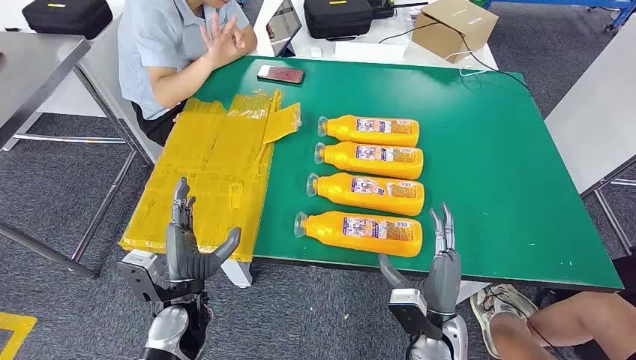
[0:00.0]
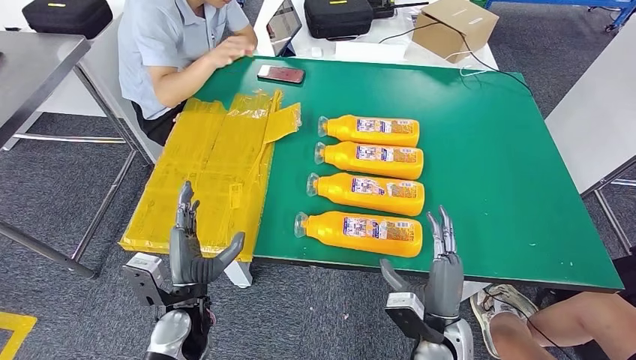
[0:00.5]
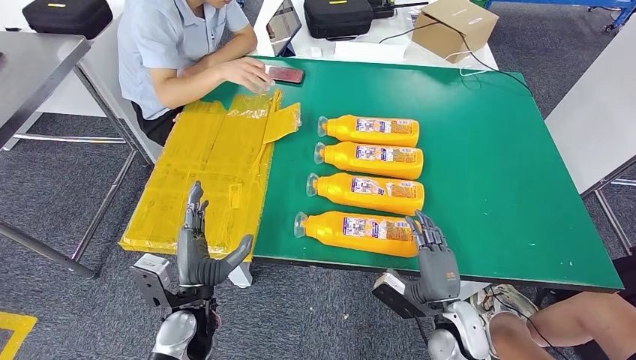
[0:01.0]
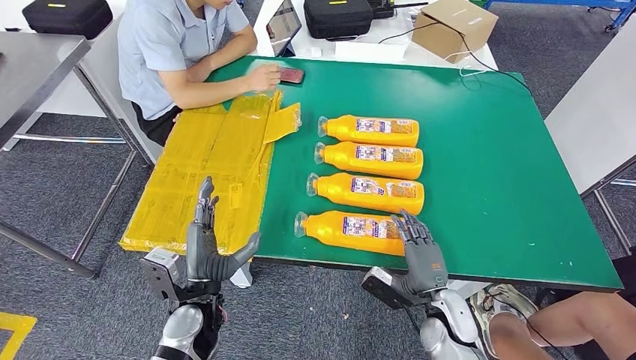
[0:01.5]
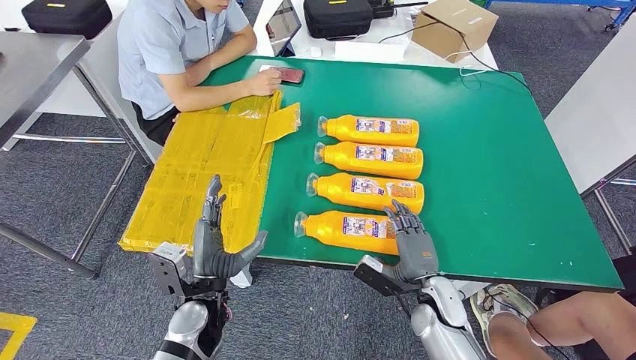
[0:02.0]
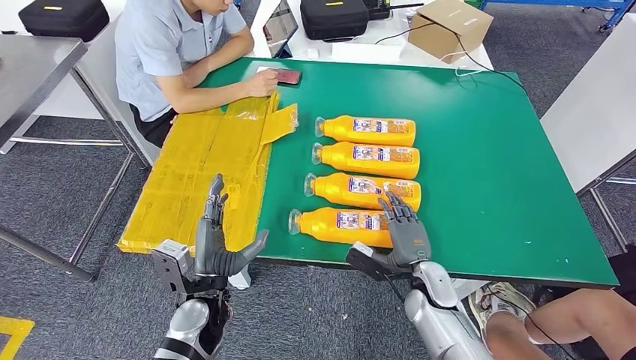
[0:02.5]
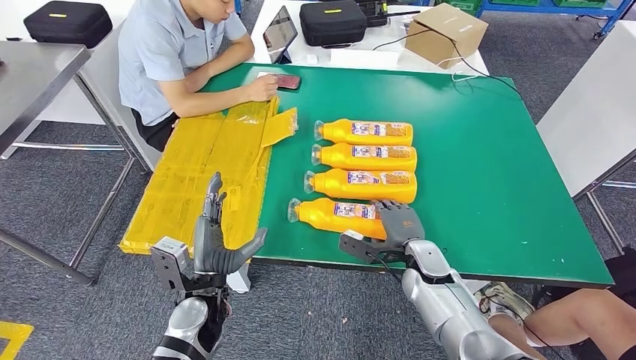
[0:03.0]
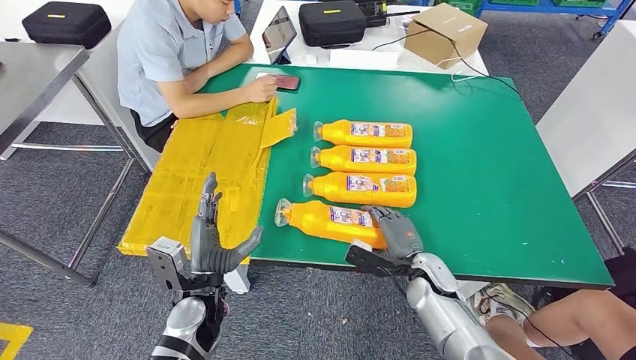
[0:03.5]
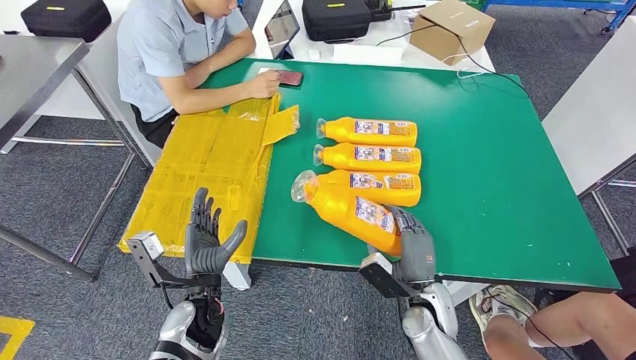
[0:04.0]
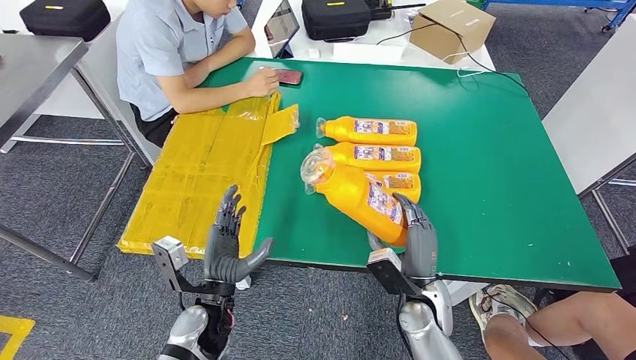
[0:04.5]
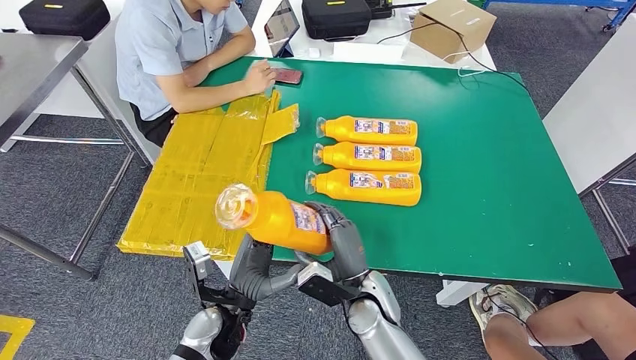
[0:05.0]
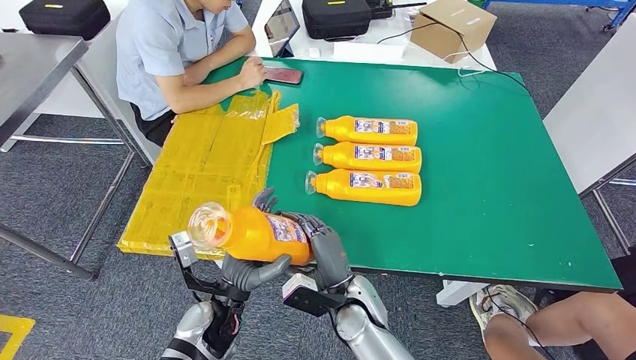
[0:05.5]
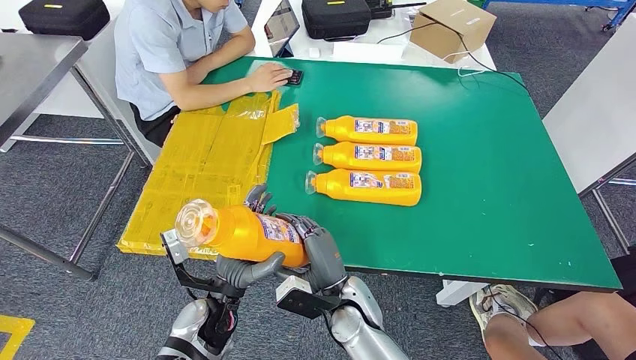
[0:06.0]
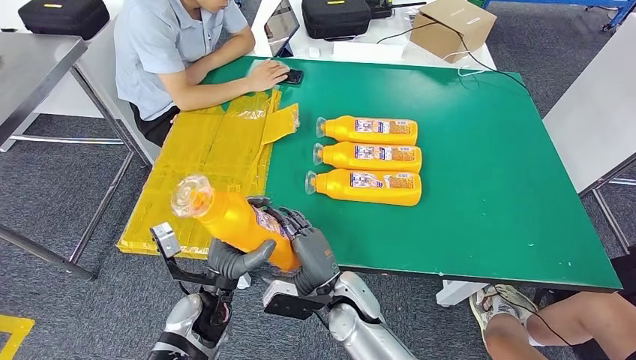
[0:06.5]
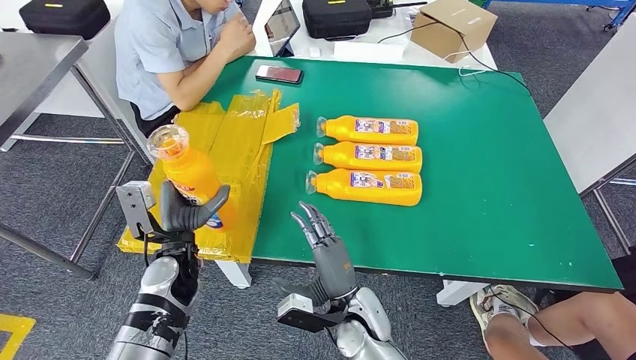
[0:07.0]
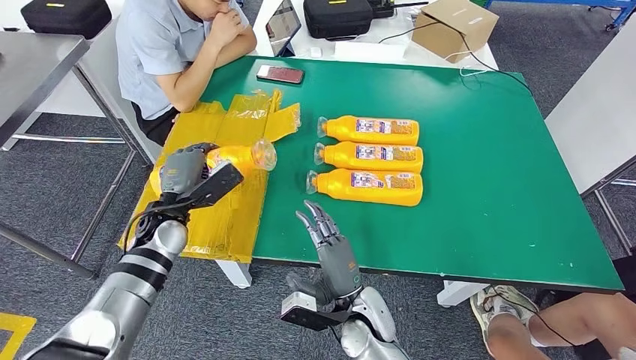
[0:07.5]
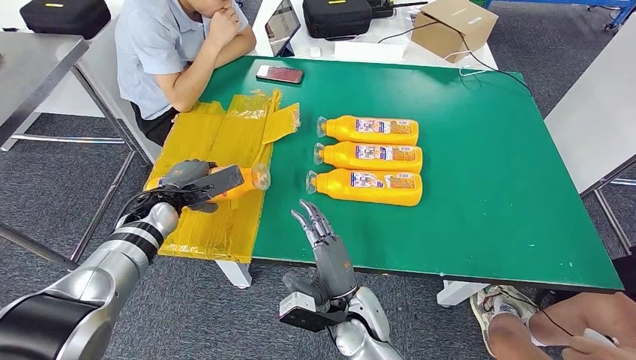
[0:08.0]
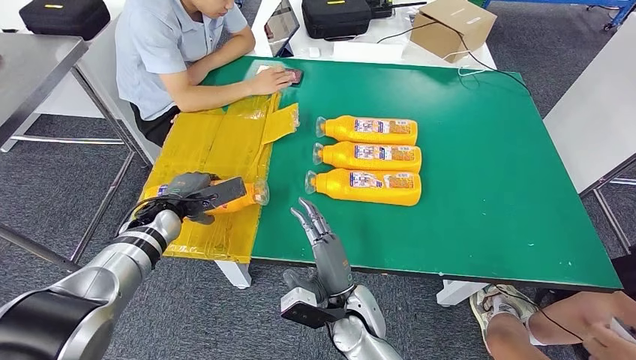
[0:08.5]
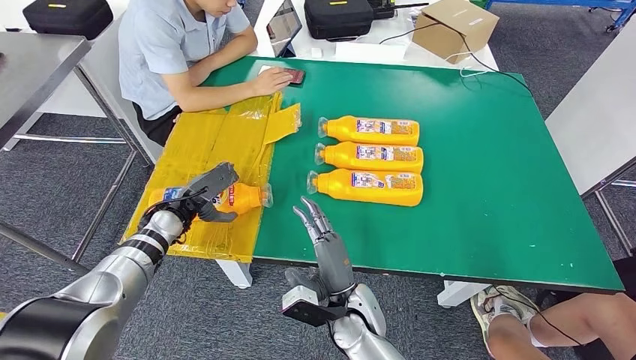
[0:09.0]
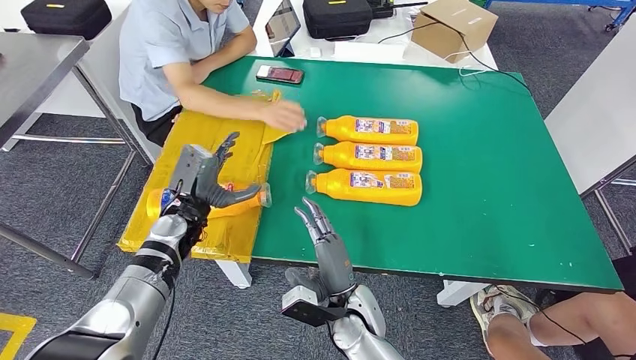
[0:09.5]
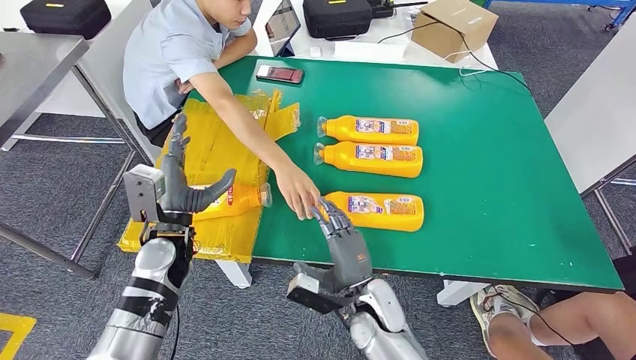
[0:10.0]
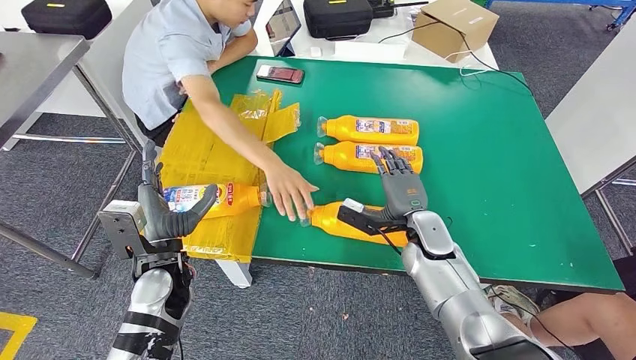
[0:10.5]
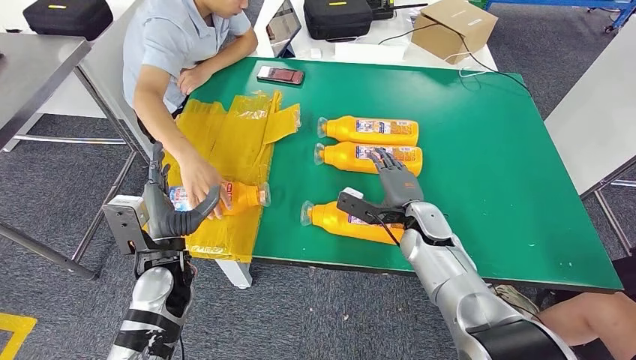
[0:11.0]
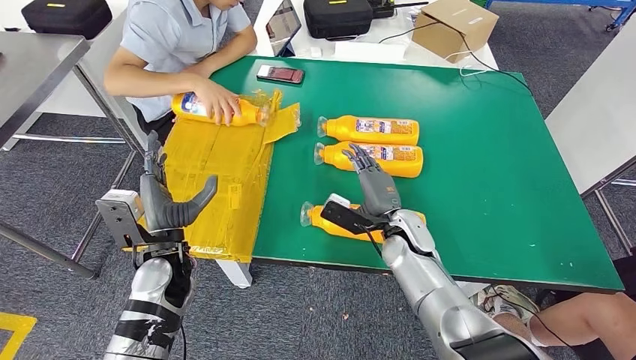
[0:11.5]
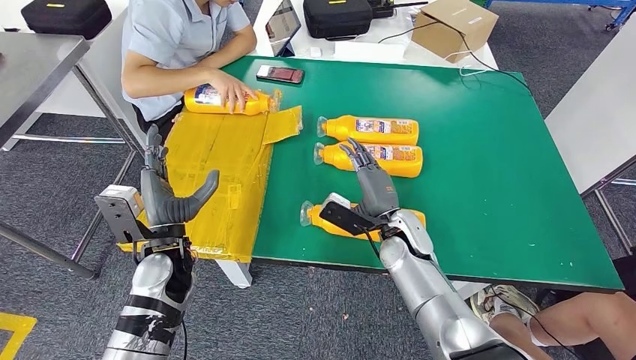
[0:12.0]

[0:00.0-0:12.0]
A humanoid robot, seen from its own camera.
Step, 0:00.0 to 0:04.5: Take the fast-moving consumer goods bottle from the table.
Step, 0:05.0 to 0:09.0: Flip the fast-moving consumer goods bottle to the front side.
0:04.0 to 0:06.0: The right hand is displaced to the left by some 15 cm.

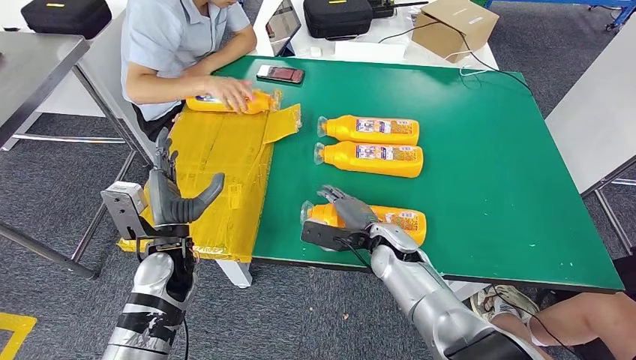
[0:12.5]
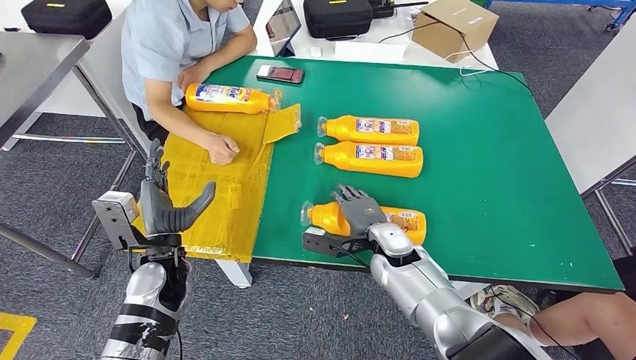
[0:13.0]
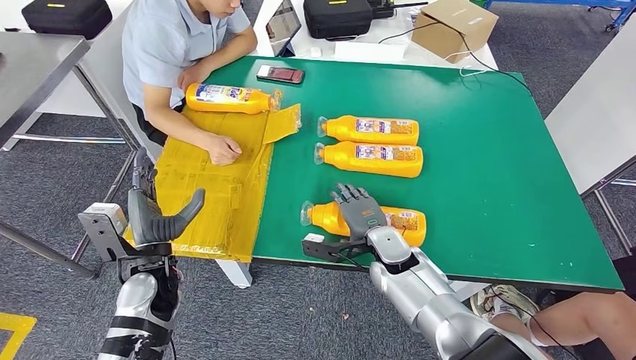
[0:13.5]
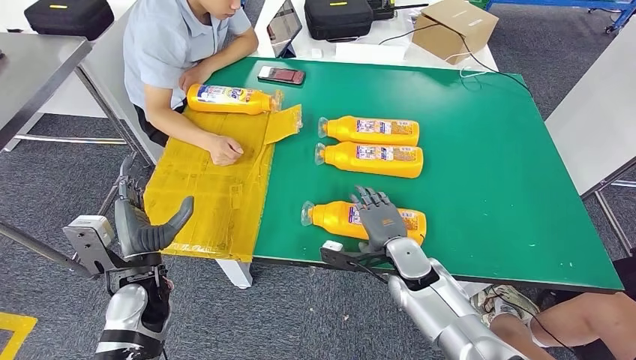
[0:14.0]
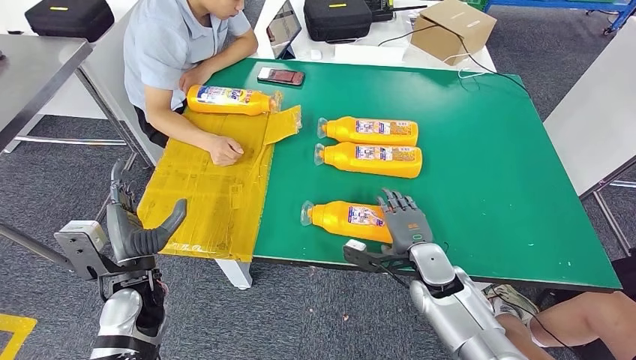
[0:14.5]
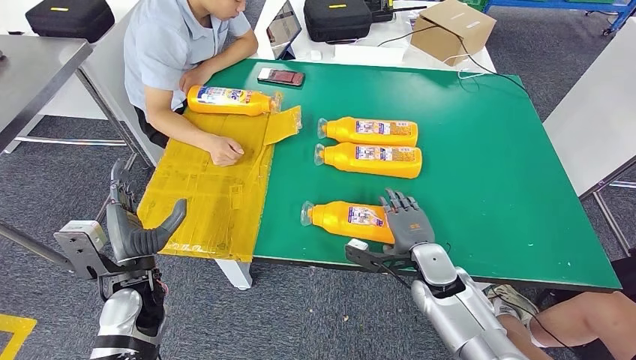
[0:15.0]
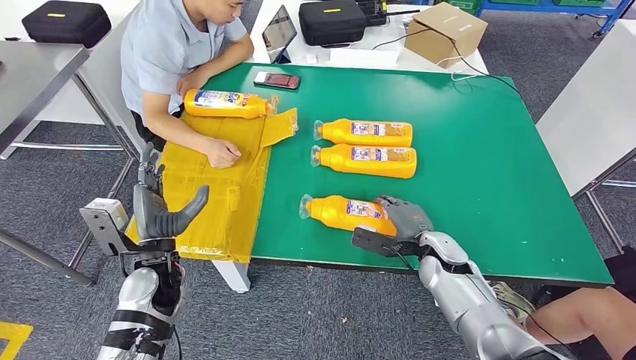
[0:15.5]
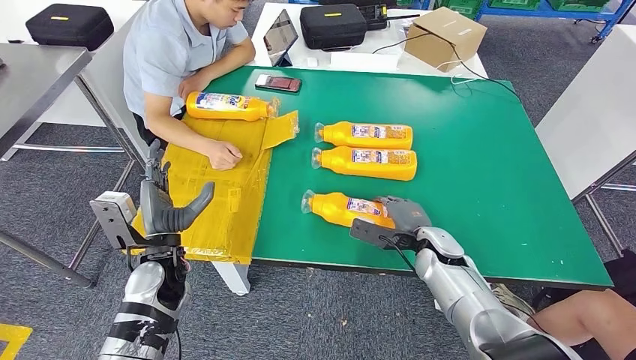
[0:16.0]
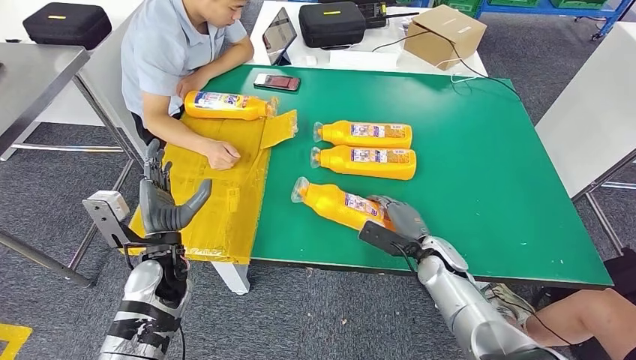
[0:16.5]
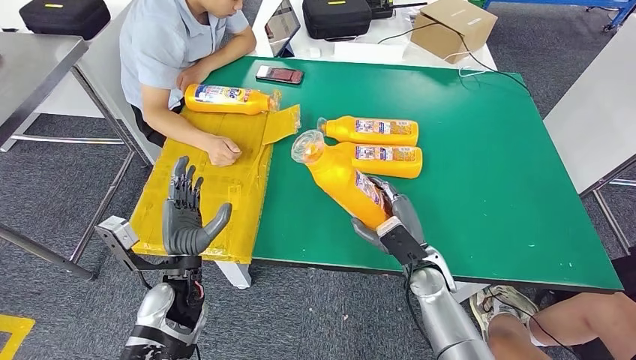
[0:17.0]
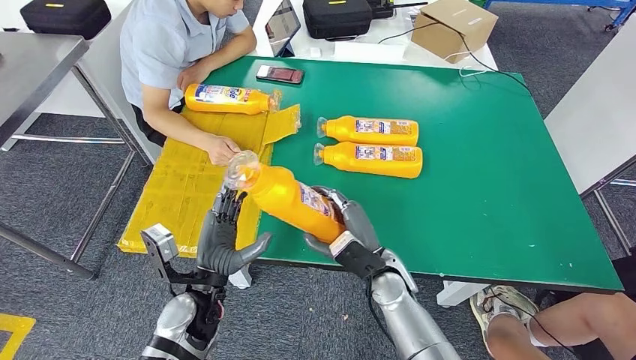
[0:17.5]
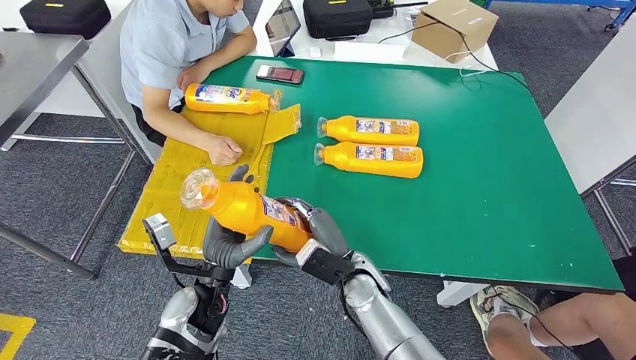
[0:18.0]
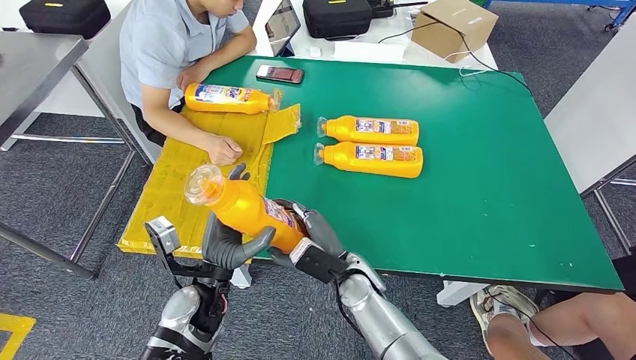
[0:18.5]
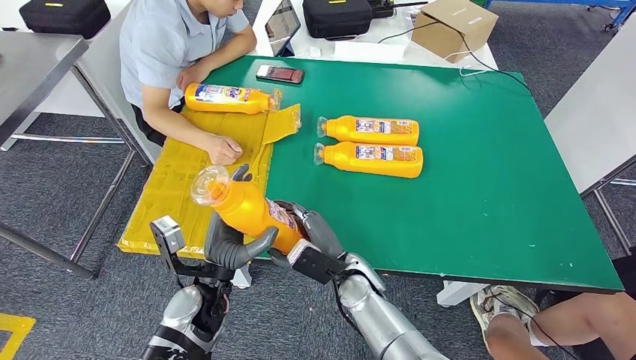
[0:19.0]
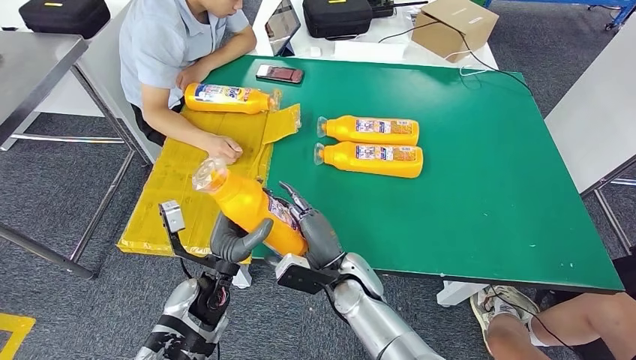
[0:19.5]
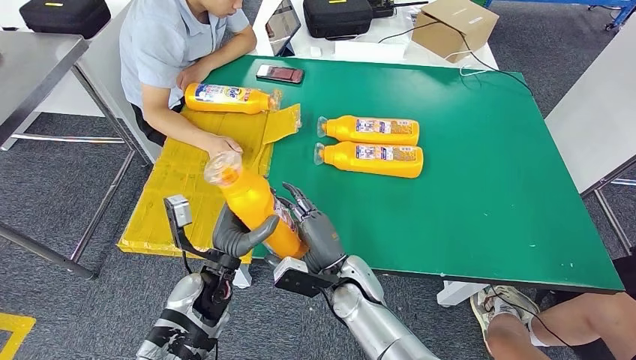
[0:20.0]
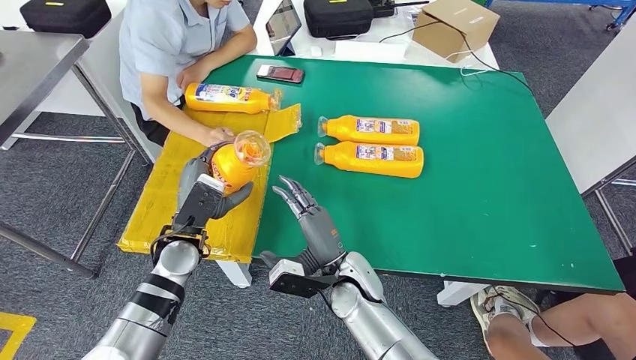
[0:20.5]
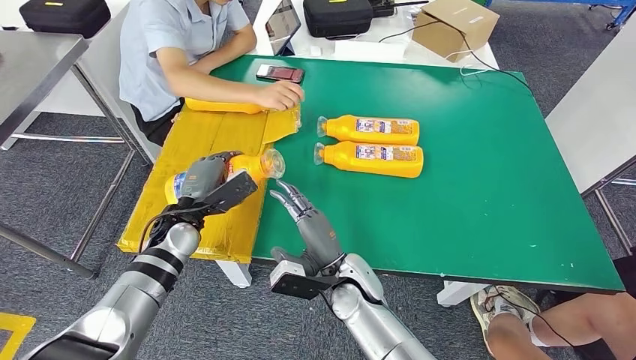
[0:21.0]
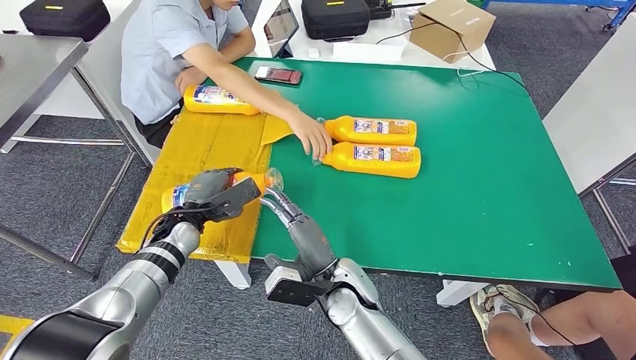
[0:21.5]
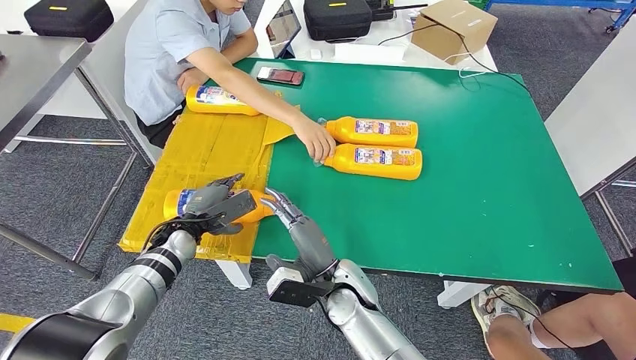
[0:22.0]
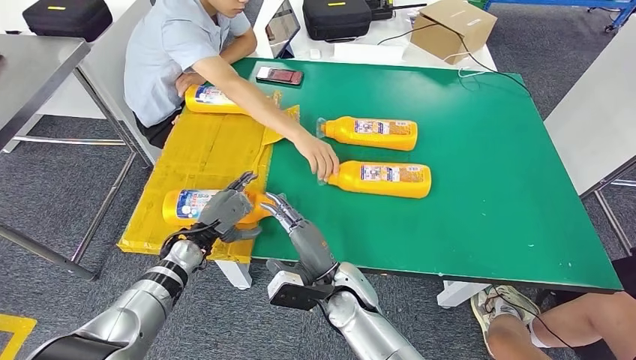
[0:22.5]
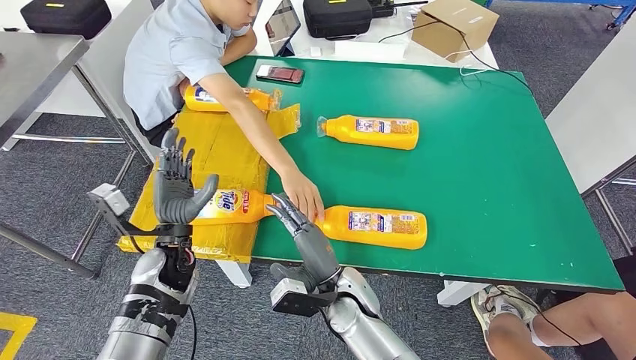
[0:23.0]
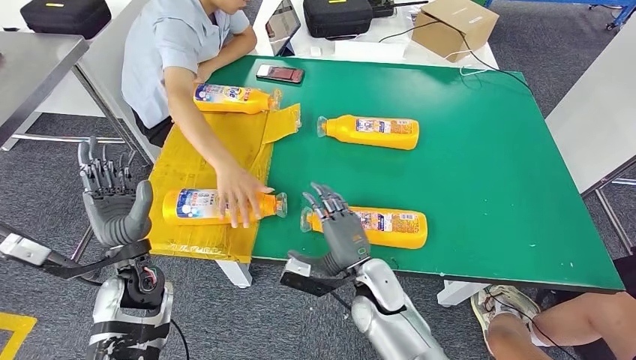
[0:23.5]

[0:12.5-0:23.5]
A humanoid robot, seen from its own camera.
Step, 0:12.5 to 0:18.0: Pick up the fast-moving consumer goods bottle from the table.
Step, 0:18.5 to 0:22.5: Flip the fast-moving consumer goods bottle to the front side.
0:18.0 to 0:20.0: There are only small adjustments of the hands.
